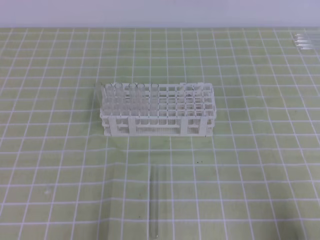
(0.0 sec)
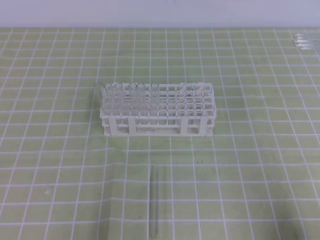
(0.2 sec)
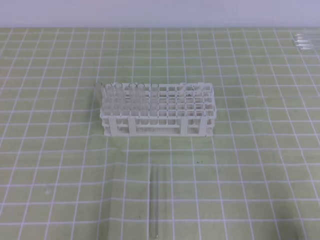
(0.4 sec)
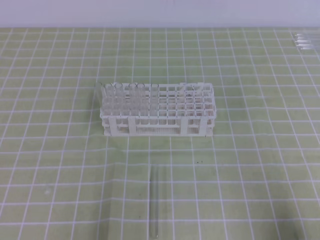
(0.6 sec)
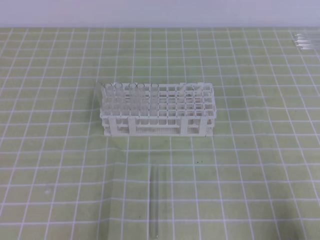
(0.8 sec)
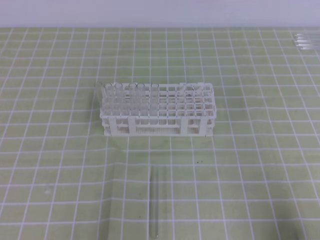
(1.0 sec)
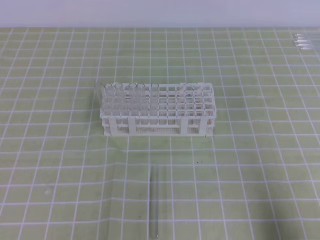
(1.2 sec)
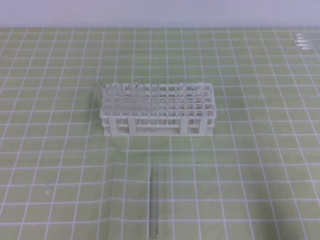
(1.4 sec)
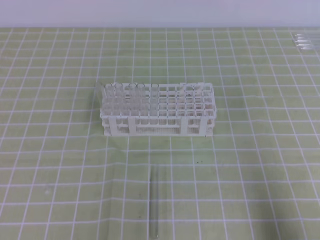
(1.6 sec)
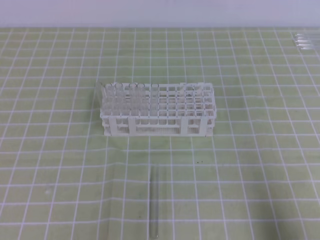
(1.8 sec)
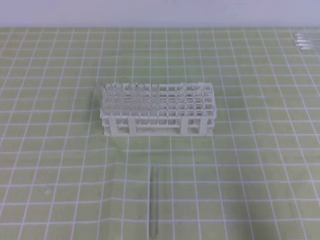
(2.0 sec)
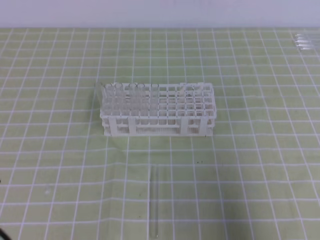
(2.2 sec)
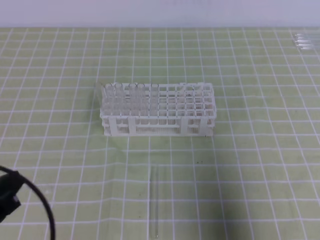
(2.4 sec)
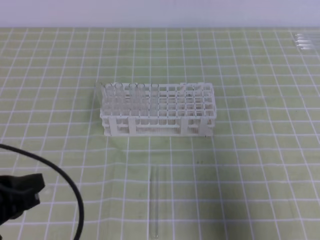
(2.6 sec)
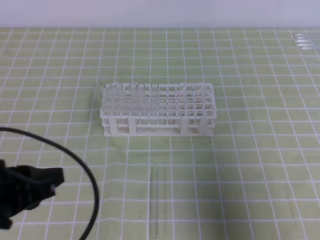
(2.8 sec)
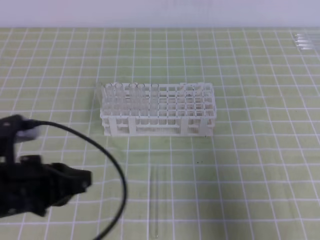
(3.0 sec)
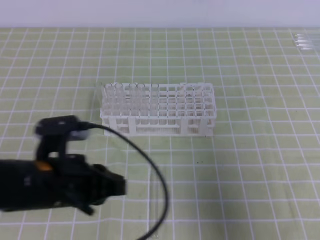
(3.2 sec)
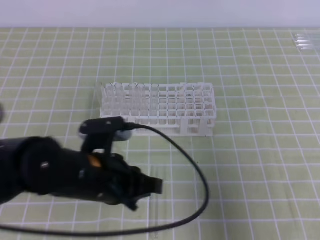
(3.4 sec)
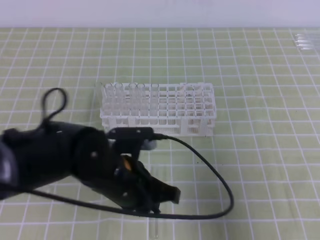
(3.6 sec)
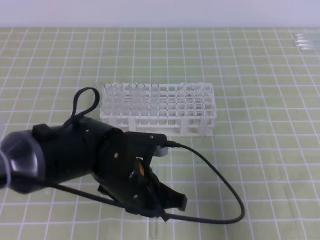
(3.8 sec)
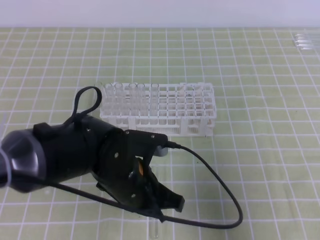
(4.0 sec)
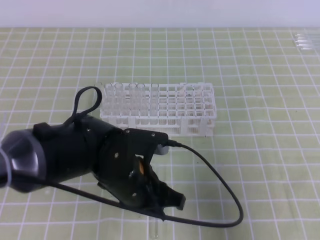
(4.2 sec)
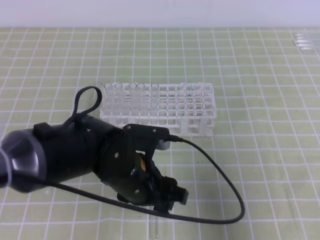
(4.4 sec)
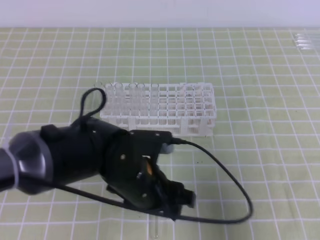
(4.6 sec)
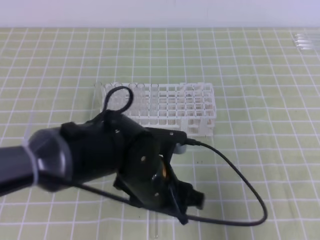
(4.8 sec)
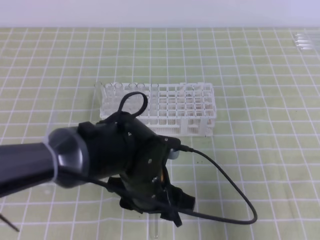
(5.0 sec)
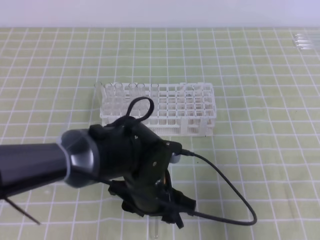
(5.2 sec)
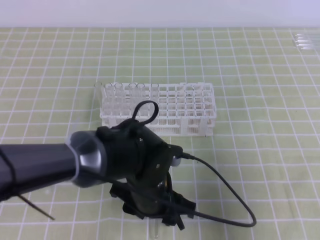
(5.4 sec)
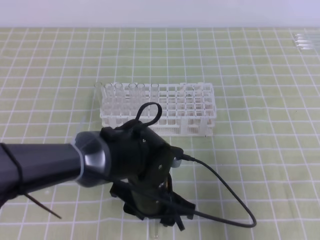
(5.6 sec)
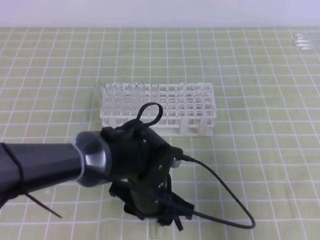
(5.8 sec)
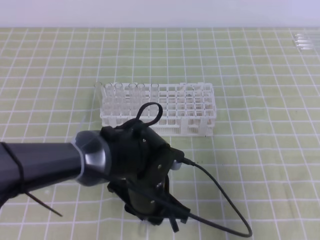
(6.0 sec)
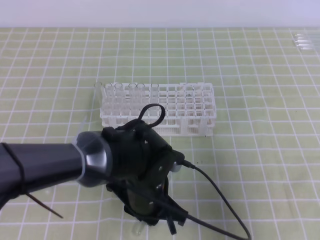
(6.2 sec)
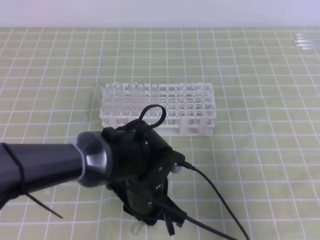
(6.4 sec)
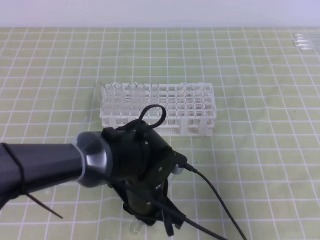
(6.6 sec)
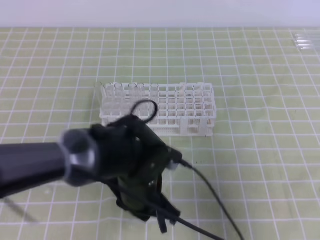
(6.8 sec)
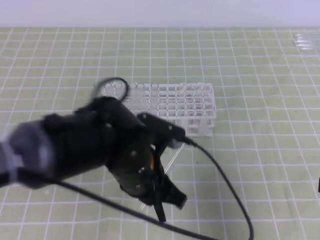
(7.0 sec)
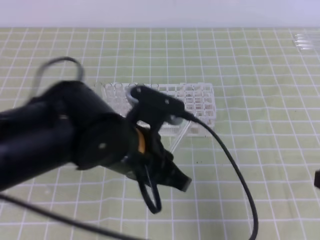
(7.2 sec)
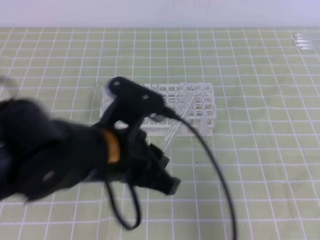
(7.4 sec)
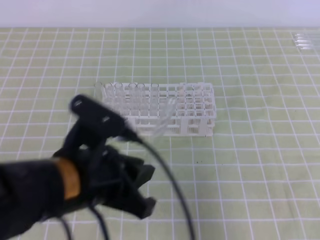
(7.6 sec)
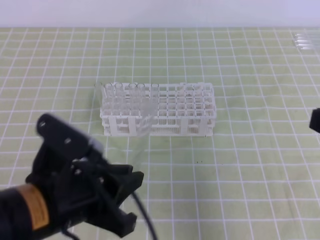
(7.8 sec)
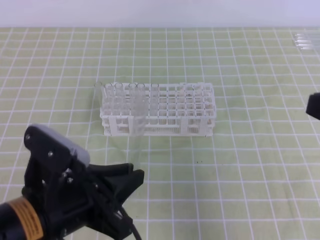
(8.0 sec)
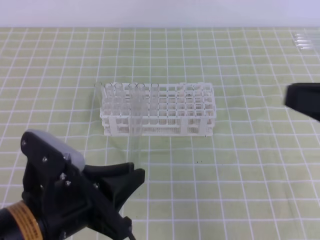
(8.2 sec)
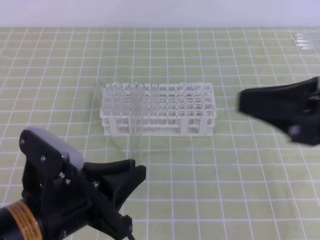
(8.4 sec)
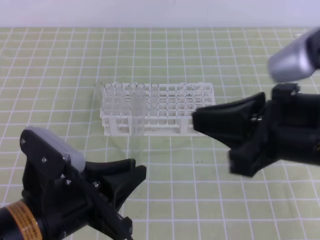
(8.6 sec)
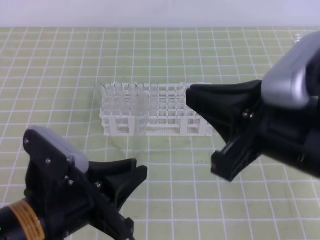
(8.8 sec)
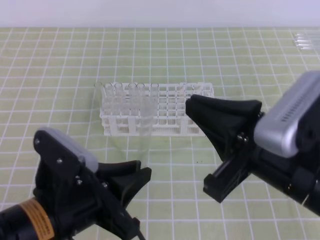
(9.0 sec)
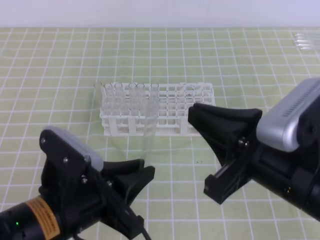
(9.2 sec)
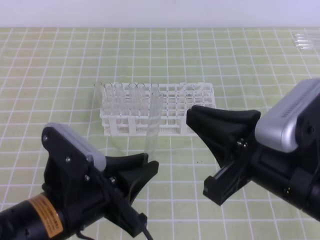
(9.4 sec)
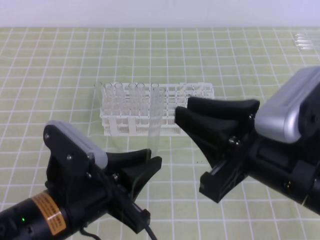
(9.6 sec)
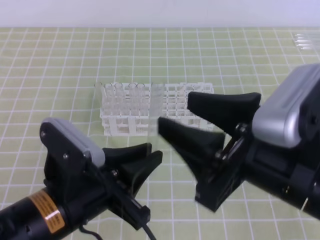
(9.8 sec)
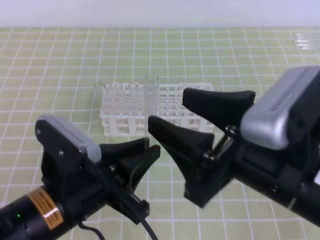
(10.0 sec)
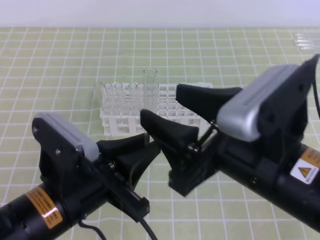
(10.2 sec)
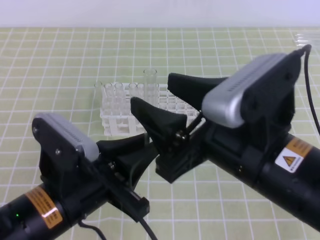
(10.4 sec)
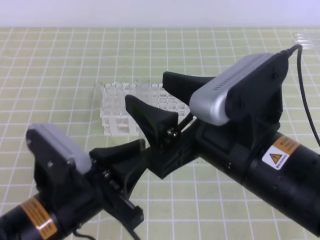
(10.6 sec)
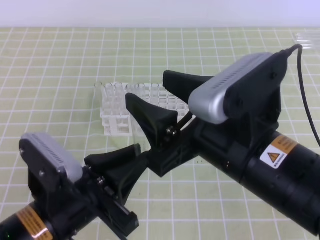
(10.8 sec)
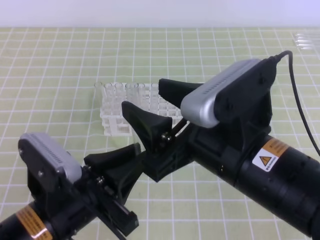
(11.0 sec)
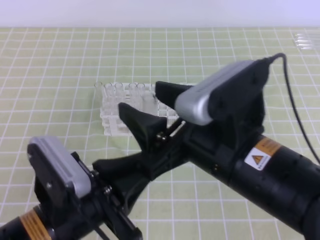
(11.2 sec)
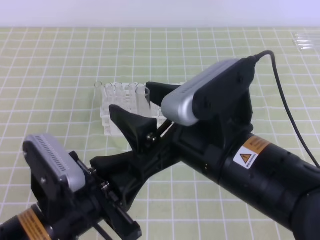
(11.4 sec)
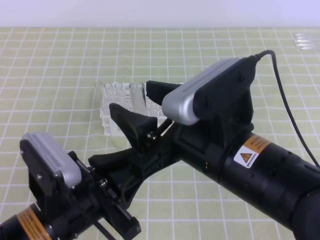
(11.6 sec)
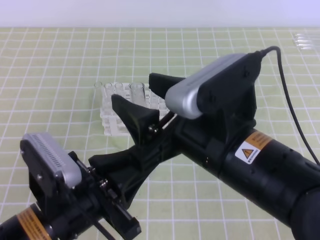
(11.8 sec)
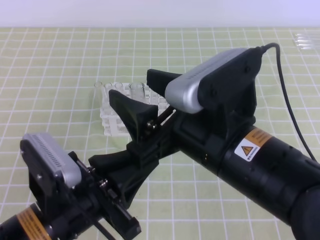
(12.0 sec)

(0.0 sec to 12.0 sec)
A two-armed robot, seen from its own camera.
1.6 sec - 3.0 sec: The right gripper moves upward and forward, roughly 10 cm. Meanwhile the left gripper travels forward, to the right and upward by about 15 cm.
3.0 sec - 4.4 sec: The left gripper goes approximately 15 cm to the right, and opens.
4.4 sec - 6.0 sec: The left gripper shifts by roughly 5 cm, and closes its fingers.
6.0 sec - 7.6 sec: The left gripper heads upward, to the left and backward, covering roughly 15 cm; the right gripper heads upward, covering approximately 5 cm.
7.6 sec - 9.0 sec: The left gripper moves approximately 5 cm, while the right gripper moves to the left, approximately 15 cm.
9.0 sec - 10.4 sec: The right gripper opens its fingers.

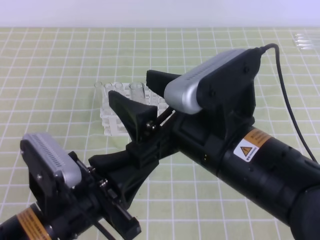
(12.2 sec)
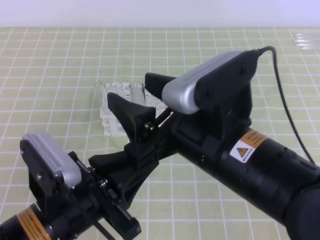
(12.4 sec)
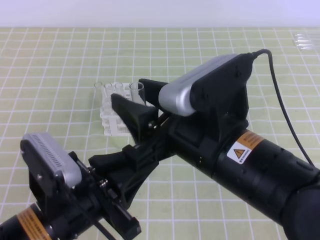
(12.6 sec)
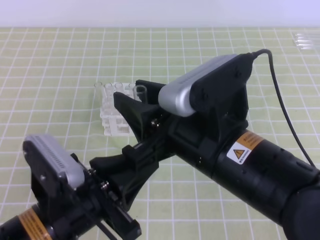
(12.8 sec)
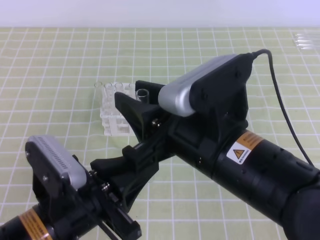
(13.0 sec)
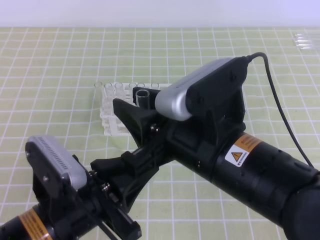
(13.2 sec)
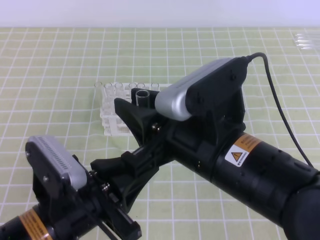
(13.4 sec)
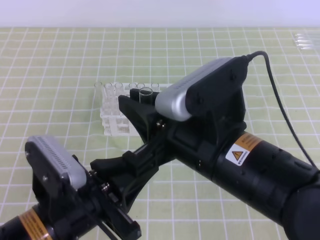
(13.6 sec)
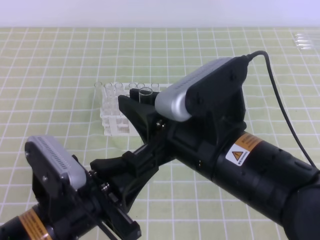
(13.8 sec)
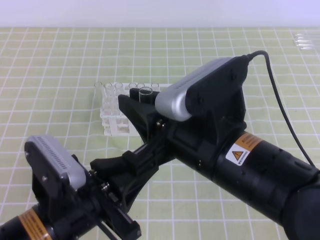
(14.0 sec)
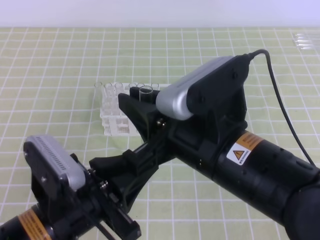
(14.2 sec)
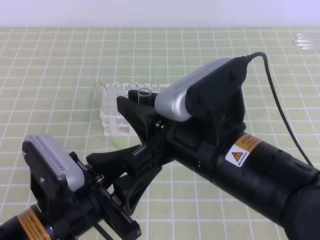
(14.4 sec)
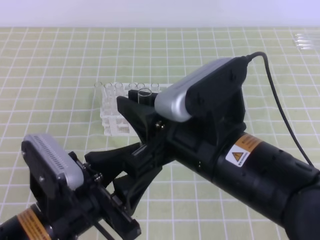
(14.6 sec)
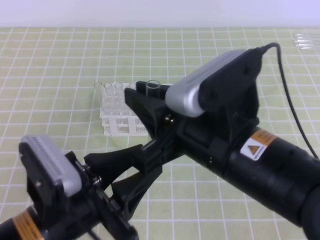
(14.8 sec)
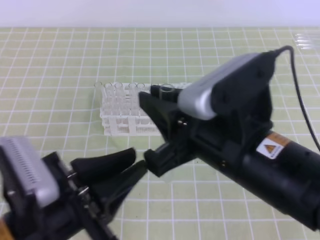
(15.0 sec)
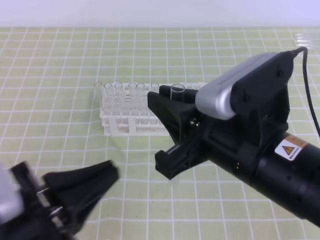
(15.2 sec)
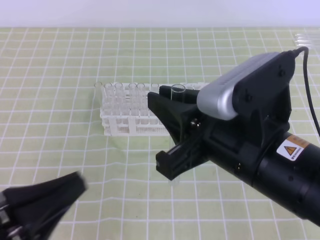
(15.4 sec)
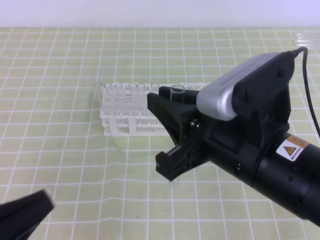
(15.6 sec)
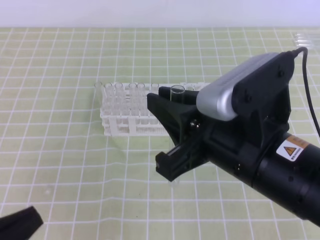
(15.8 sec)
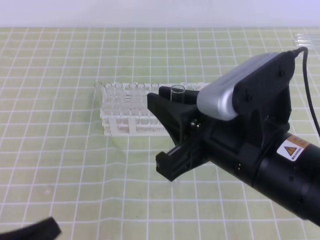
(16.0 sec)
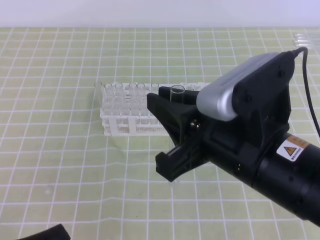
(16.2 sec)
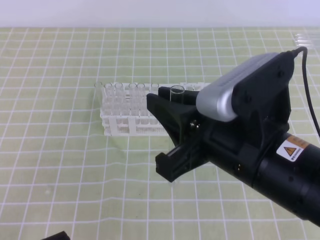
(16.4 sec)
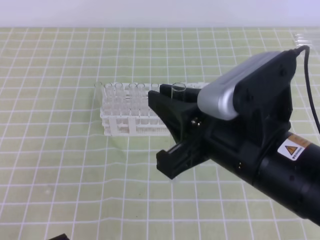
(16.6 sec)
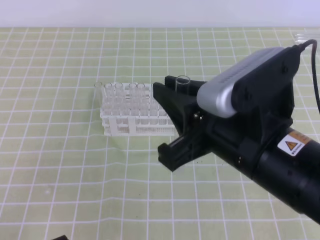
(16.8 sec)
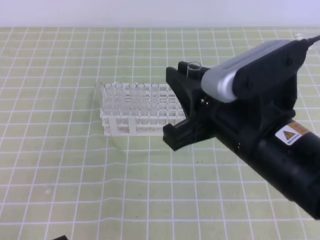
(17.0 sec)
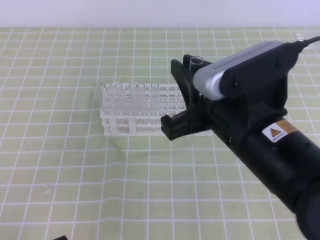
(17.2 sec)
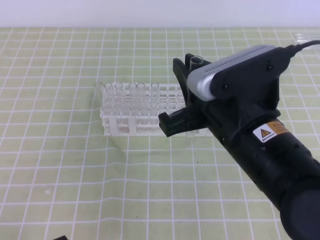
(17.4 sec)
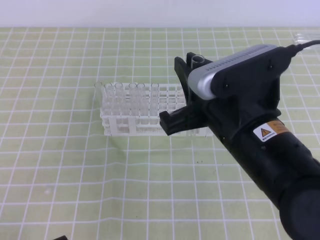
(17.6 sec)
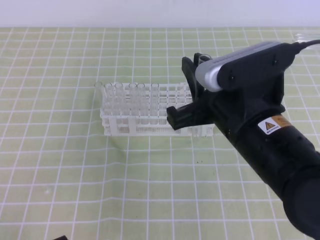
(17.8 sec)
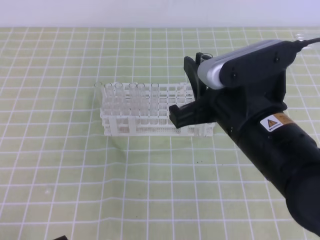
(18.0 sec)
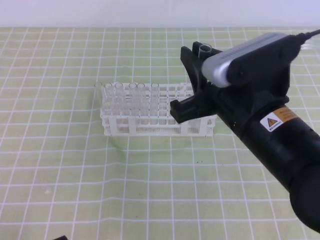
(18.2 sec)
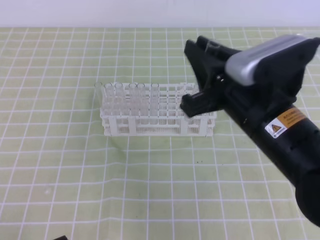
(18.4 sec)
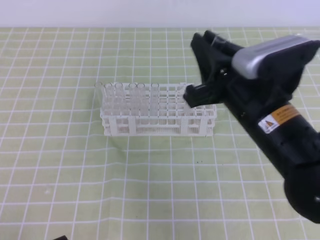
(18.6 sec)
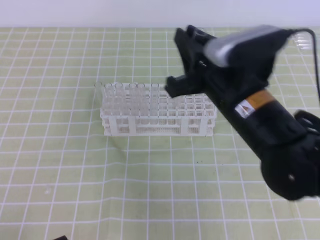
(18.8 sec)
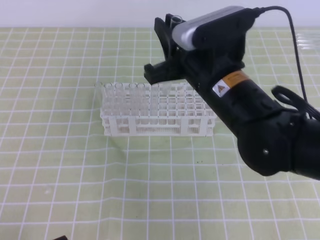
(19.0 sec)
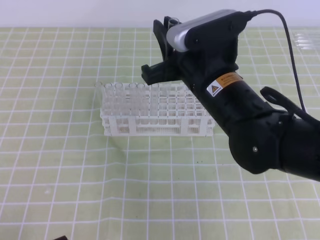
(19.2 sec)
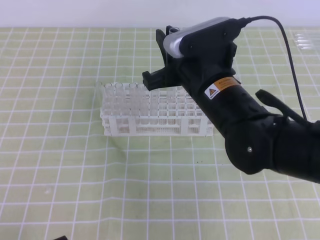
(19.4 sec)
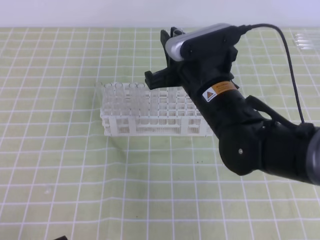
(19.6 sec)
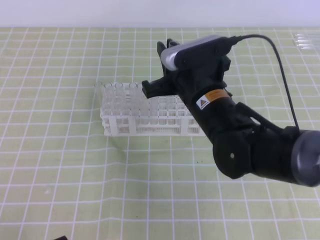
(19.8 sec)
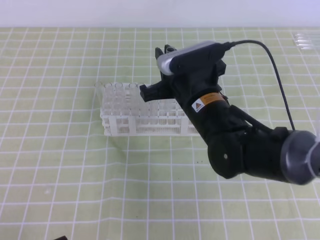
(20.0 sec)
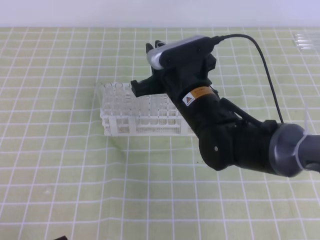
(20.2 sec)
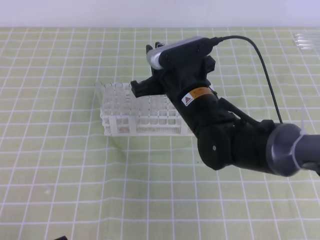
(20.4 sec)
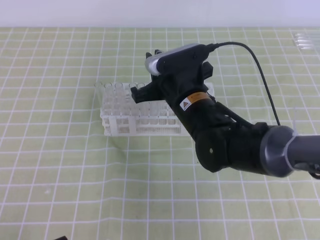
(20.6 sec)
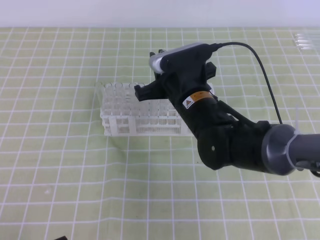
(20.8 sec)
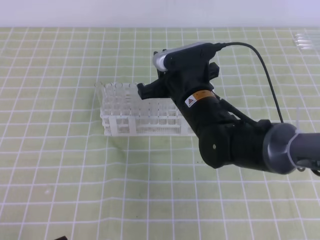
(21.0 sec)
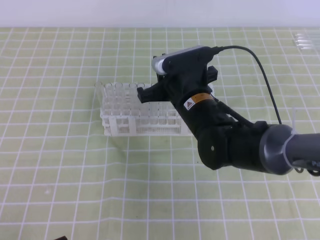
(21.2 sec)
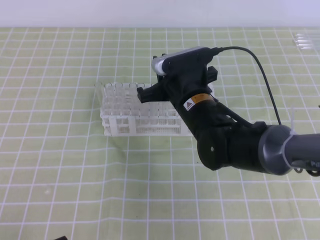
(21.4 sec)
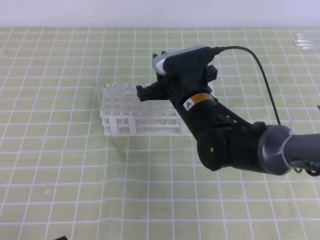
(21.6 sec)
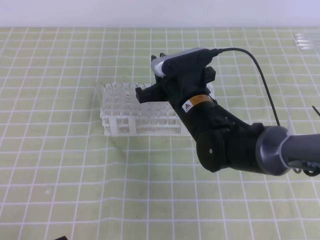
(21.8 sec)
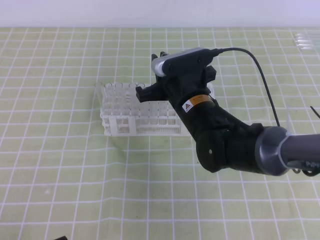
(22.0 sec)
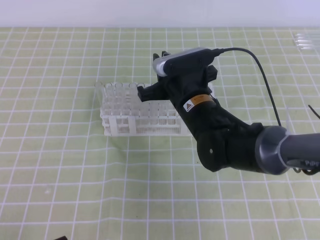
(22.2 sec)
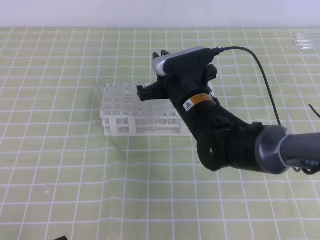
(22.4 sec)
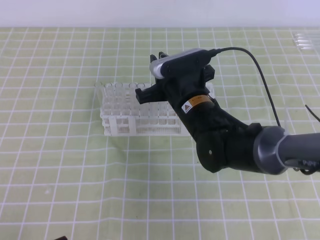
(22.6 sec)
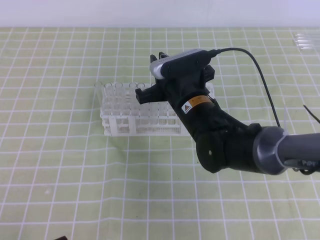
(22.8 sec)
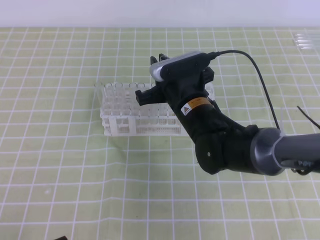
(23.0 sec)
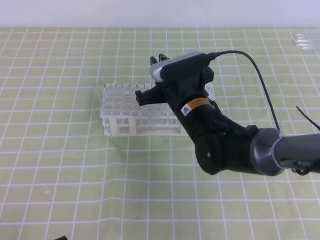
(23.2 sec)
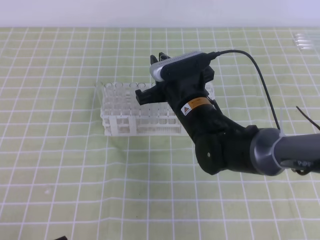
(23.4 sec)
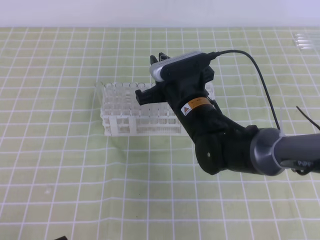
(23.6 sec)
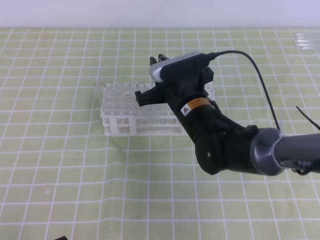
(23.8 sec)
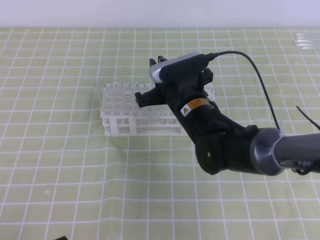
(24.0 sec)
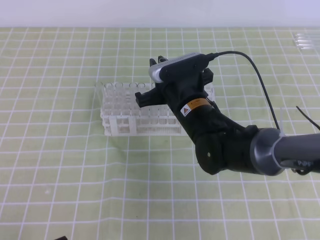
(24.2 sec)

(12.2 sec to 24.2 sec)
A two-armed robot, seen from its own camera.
12.2 sec - 13.8 sec: The right gripper closes its fingers.
13.8 sec - 15.2 sec: The left gripper ends up roughly 5 cm from where it was, and opens and closes again.
15.2 sec - 16.6 sec: The left gripper is displaced downward and to the left by some 10 cm.
16.6 sec - 18.2 sec: The right gripper heads forward, covering some 5 cm.
18.2 sec - 19.8 sec: The right gripper moves forward and downward, roughly 10 cm.
19.8 sec - 21.2 sec: There are only small adjustments of the grippers.
21.2 sec - 22.6 sec: Both grippers stay put.
22.6 sec - 24.2 sec: Both grippers stay put.
